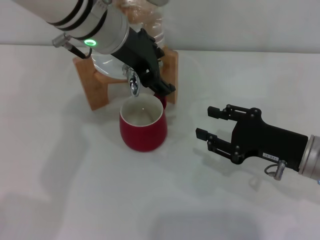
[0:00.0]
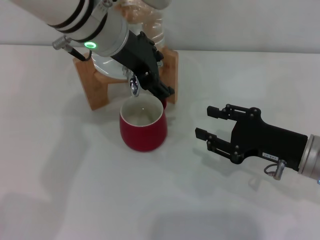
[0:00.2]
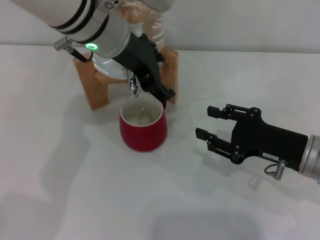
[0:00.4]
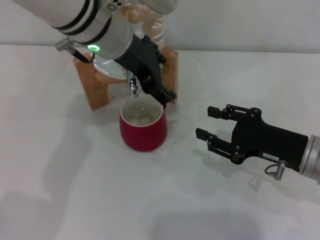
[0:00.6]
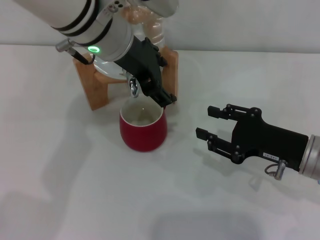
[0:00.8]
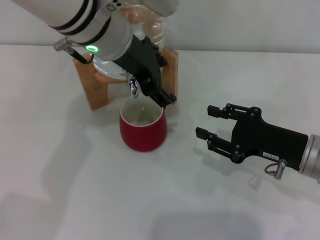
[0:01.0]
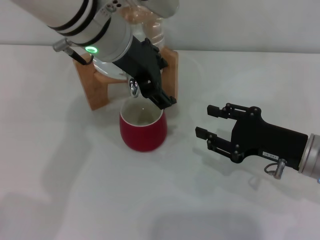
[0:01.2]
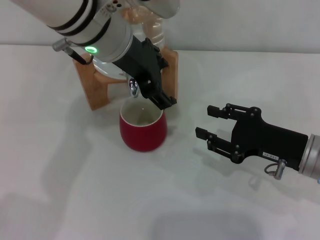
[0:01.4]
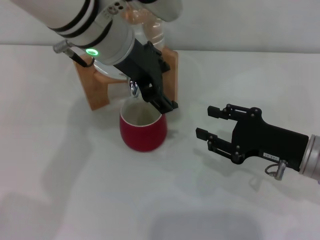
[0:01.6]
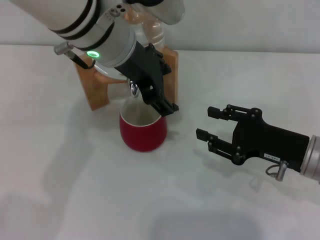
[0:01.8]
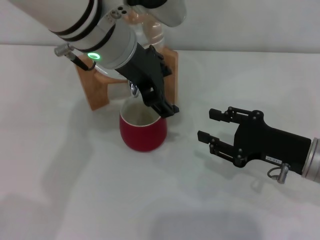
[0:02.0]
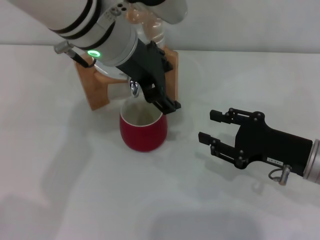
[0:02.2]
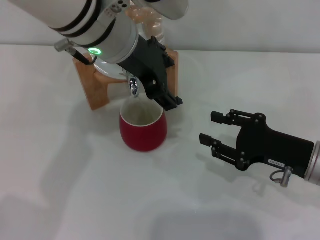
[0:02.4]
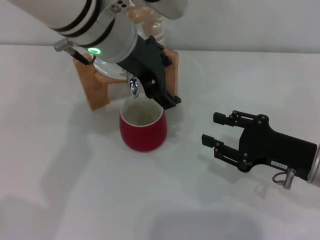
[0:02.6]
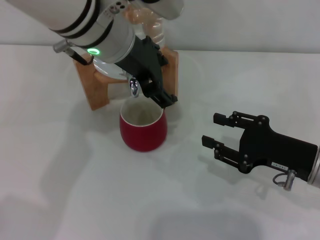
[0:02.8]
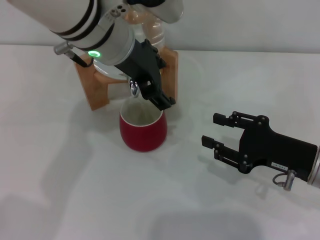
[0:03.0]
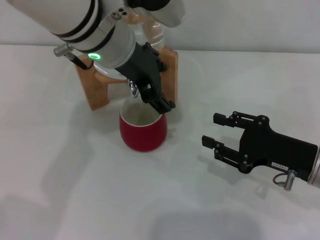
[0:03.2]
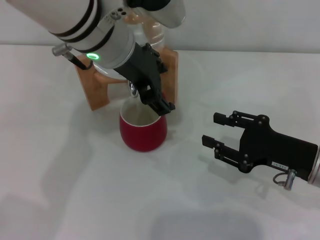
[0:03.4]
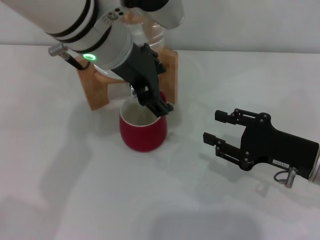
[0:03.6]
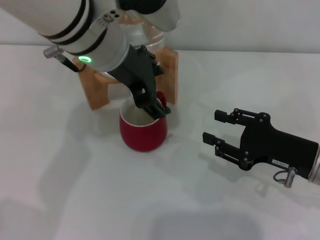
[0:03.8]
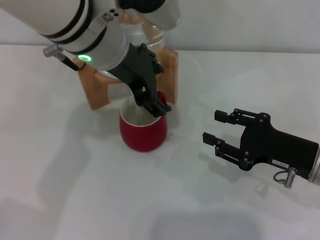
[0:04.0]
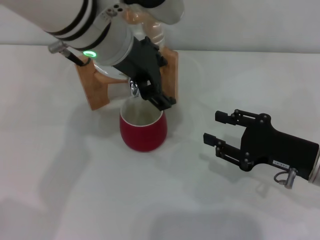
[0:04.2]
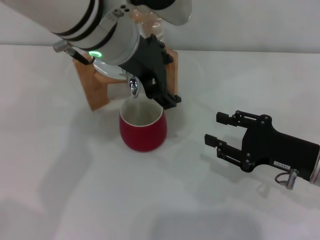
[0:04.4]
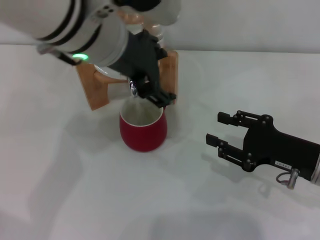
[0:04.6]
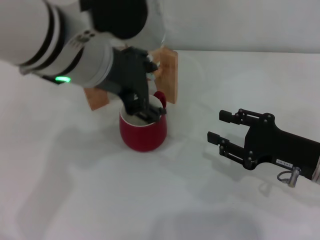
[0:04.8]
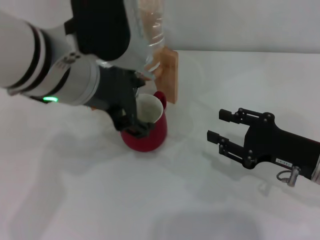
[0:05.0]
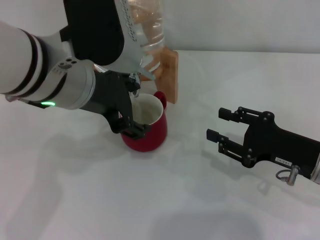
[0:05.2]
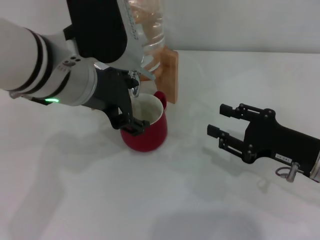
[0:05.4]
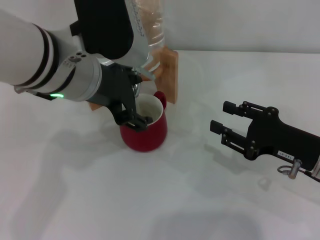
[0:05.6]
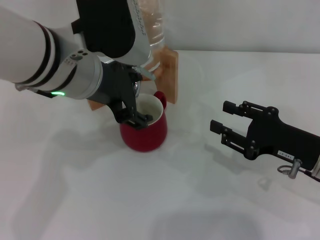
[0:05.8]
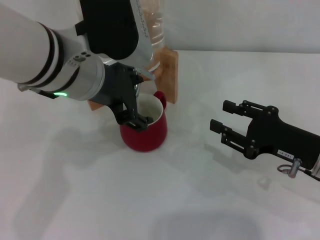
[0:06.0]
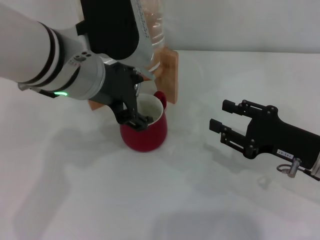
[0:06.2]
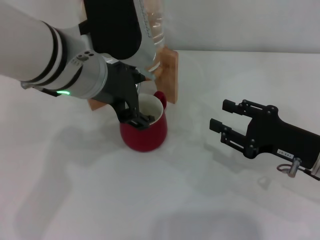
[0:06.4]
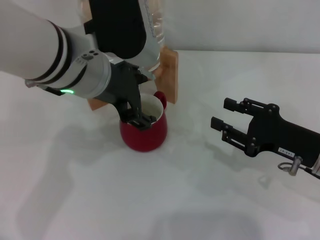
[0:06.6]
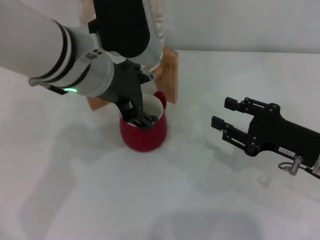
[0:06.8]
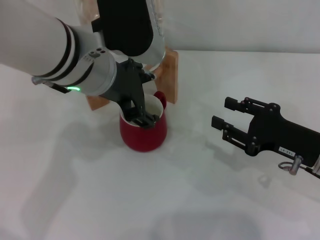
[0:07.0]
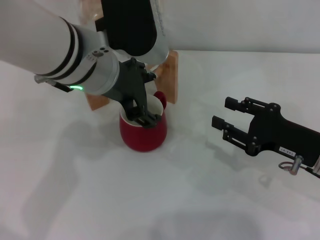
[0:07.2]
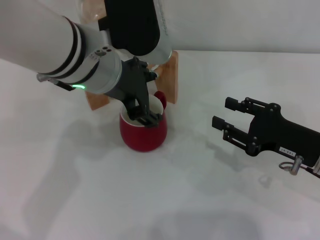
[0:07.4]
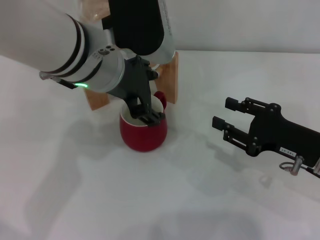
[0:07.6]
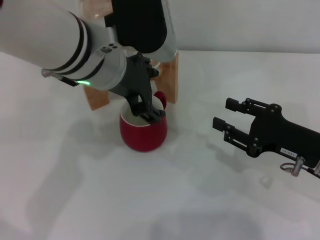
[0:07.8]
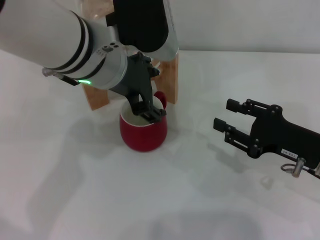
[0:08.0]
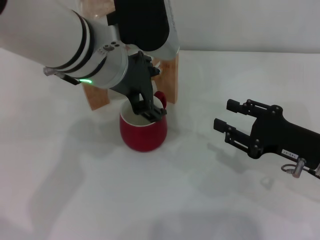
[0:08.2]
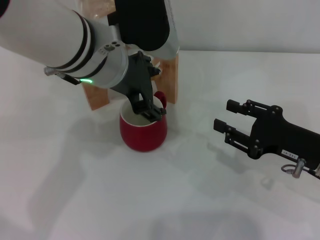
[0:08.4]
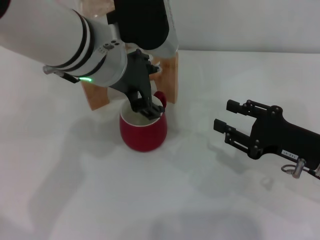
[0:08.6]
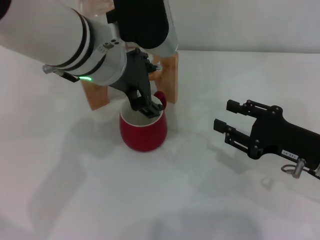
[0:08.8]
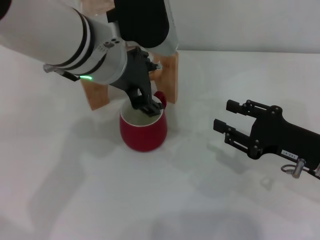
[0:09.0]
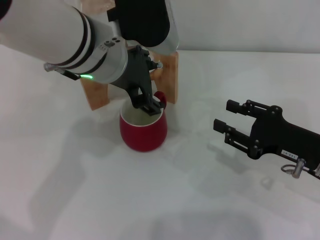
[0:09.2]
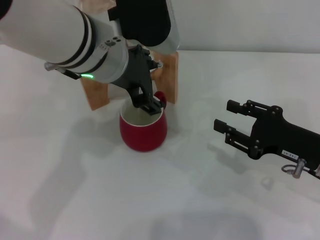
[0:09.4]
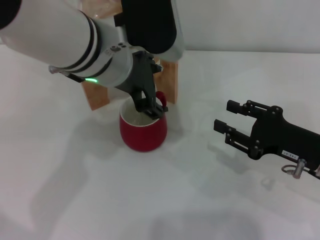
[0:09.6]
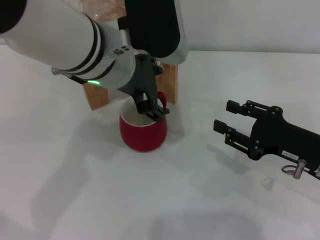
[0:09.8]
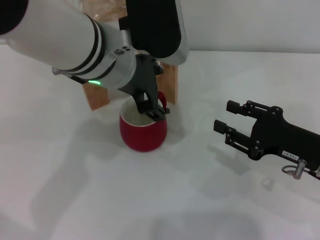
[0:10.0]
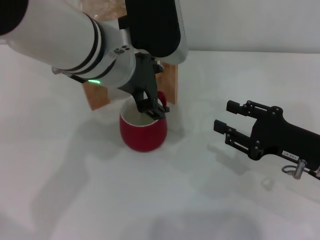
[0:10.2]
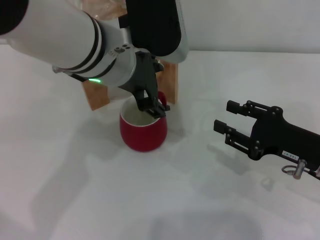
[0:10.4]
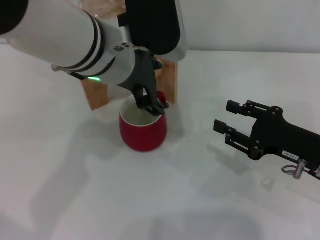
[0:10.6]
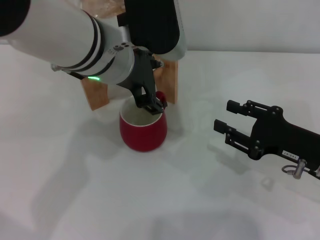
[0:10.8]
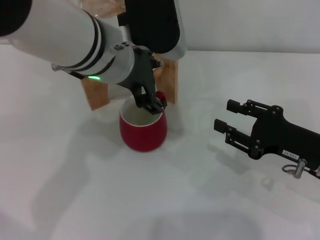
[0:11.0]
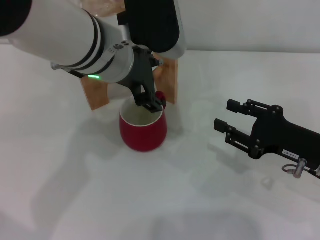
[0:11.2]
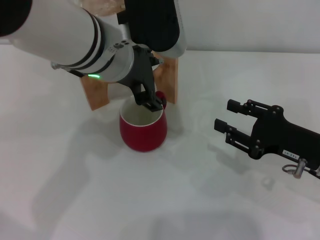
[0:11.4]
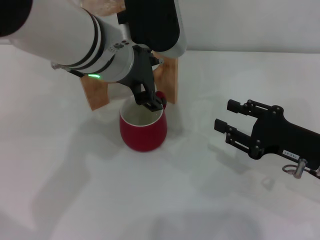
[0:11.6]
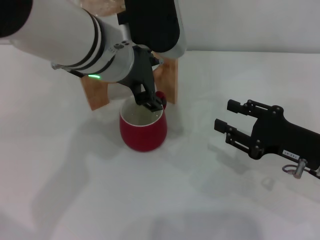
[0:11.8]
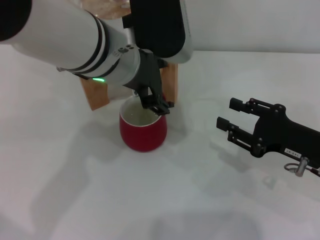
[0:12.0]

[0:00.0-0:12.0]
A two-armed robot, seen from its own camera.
Task of the whole recording: the right gripper pick up the red cup and place it horizontally under the faucet, the left gripper turn on the faucet to fill the cup, and then turn off the faucet.
Step, 0:00.0 to 0:06.4: Open the dispenser valve and fill the cup with water with the left gripper.
0:00.0 to 0:04.4: There are only small adjustments of the grippers.
0:04.4 to 0:06.0: The left gripper ends up some 5 cm from where it was.
0:06.0 to 0:07.6: The grippers stay close to where they were, moving slightly.
0:07.6 to 0:09.0: Both grippers stay put.
0:09.0 to 0:12.0: Both grippers stay about where they are.

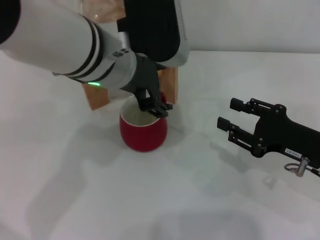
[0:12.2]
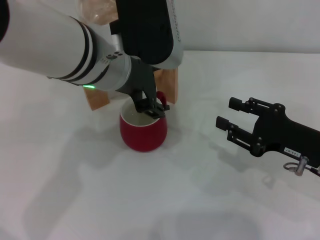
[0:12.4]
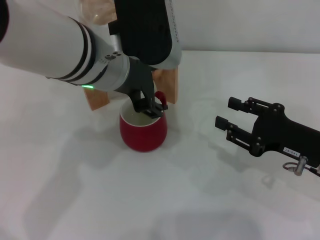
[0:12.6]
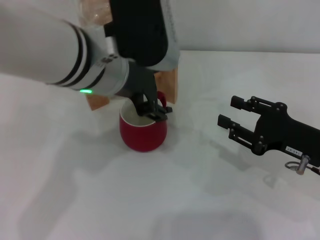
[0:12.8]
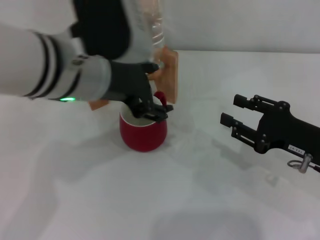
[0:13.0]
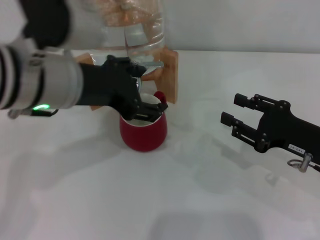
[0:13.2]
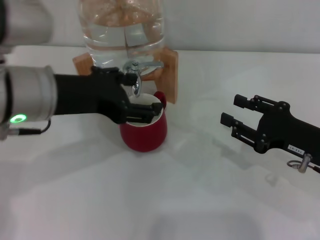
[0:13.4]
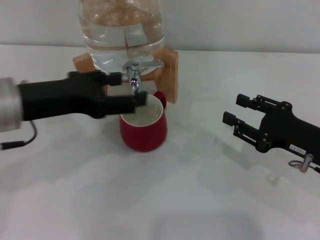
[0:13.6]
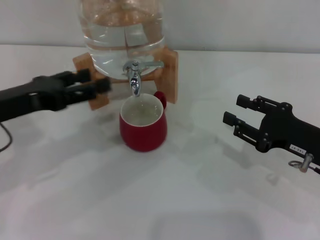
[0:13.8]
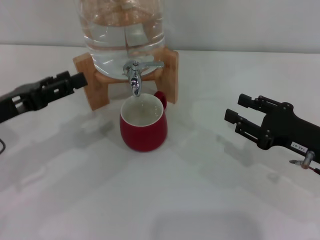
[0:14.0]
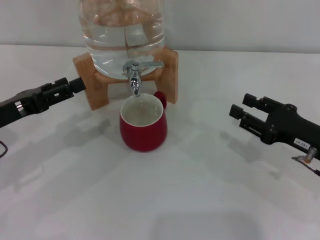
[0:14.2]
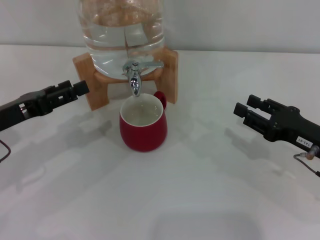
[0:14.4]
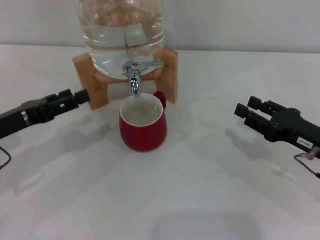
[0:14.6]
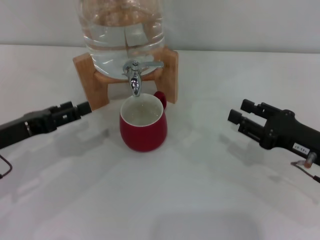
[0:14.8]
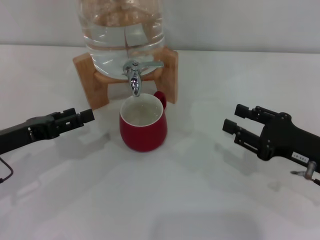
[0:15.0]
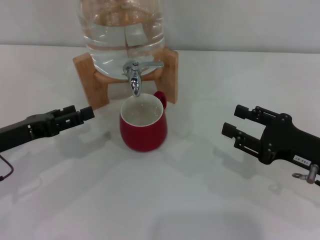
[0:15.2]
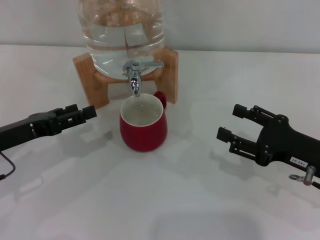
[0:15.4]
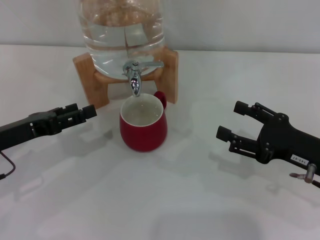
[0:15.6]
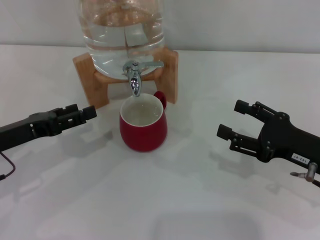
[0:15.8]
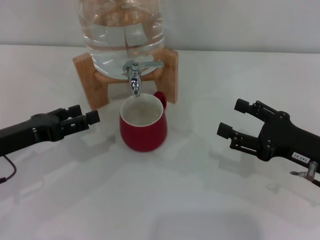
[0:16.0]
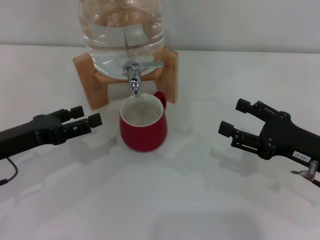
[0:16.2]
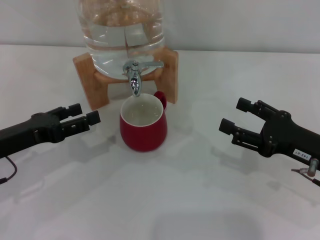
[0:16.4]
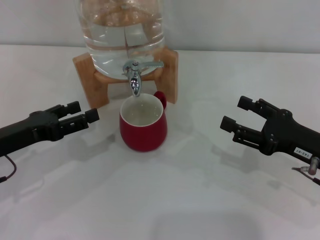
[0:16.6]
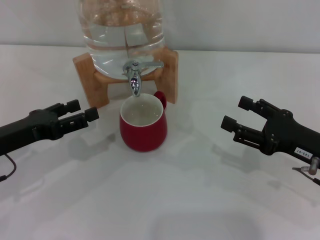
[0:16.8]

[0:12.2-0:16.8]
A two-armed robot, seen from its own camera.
Task of the whole recording: the right gripper pick up the red cup and place it horizontally under the faucet, the left gripper turn on the faucet to fill the cup, and then turn off the faucet.
0:12.2 to 0:13.8: The left gripper travels to the left by about 20 cm.
0:13.8 to 0:15.2: The left gripper goes some 5 cm downward.
0:15.2 to 0:16.8: The right gripper opens.

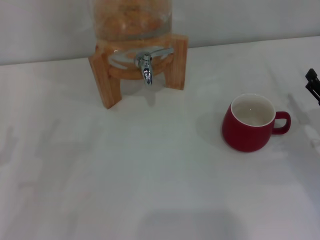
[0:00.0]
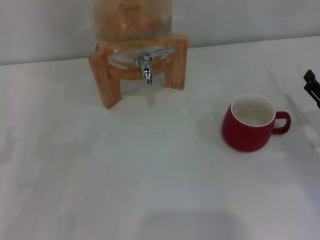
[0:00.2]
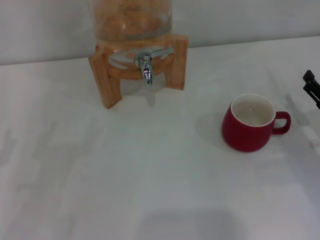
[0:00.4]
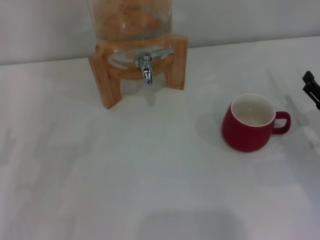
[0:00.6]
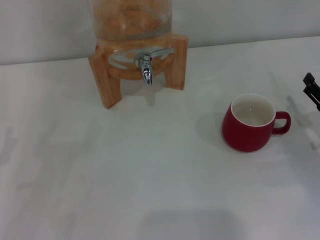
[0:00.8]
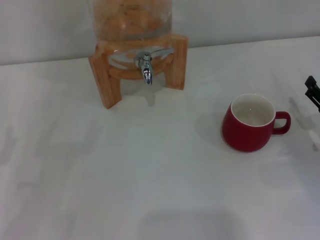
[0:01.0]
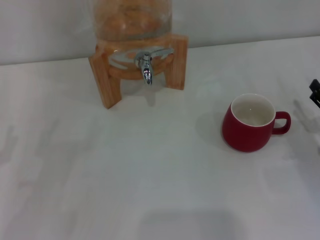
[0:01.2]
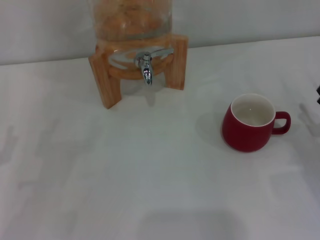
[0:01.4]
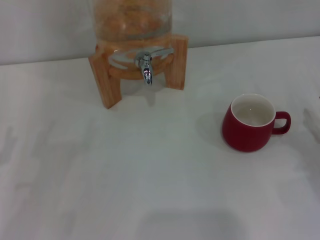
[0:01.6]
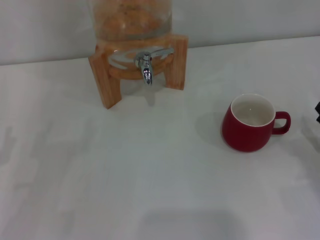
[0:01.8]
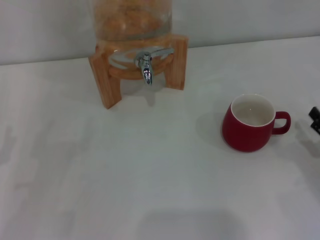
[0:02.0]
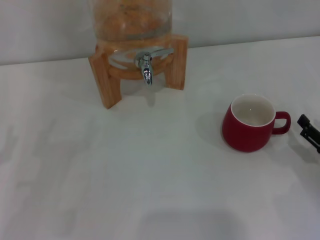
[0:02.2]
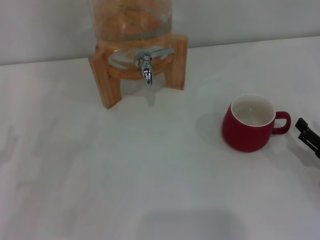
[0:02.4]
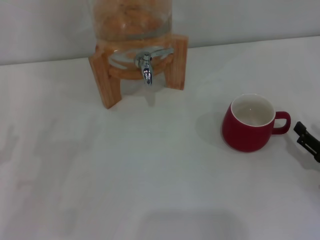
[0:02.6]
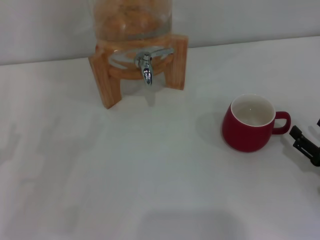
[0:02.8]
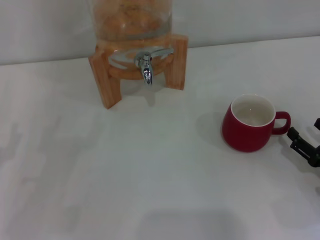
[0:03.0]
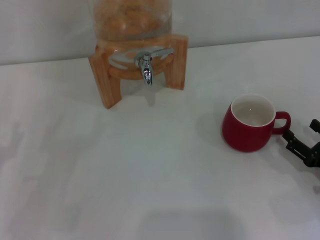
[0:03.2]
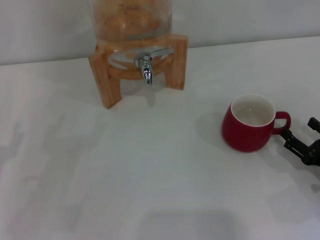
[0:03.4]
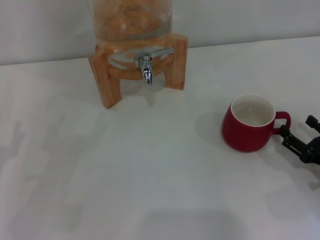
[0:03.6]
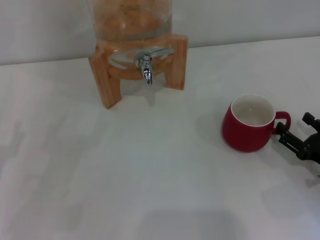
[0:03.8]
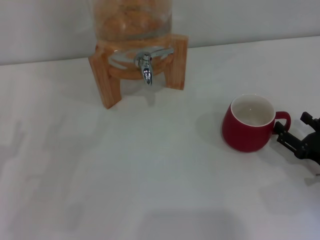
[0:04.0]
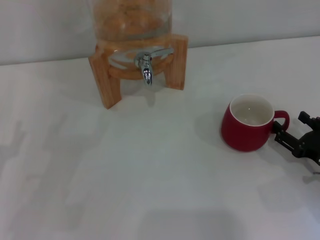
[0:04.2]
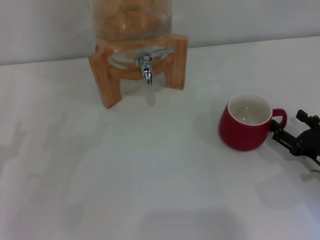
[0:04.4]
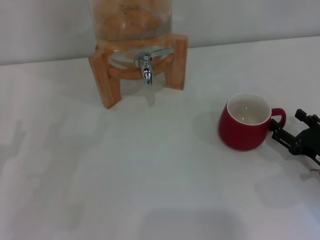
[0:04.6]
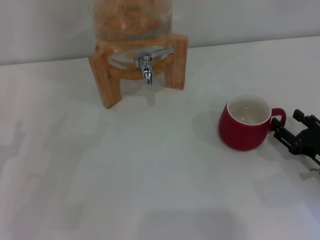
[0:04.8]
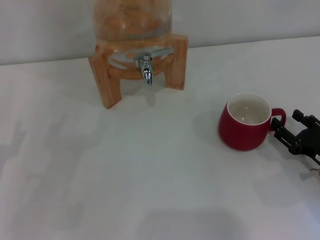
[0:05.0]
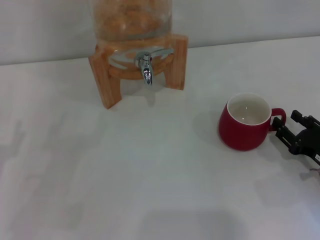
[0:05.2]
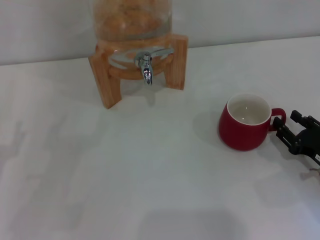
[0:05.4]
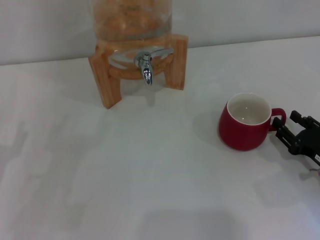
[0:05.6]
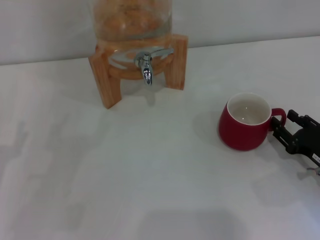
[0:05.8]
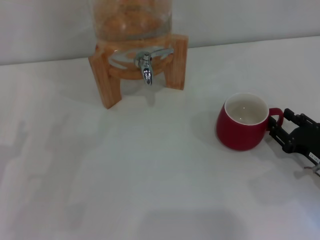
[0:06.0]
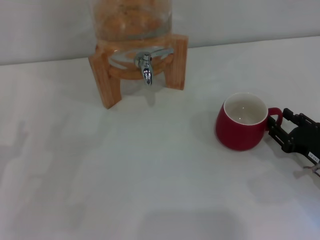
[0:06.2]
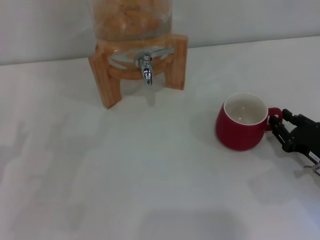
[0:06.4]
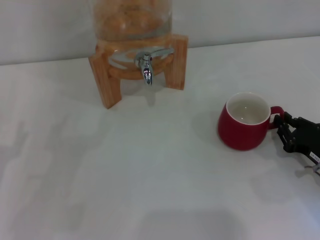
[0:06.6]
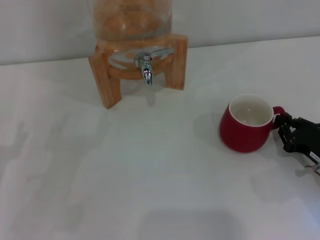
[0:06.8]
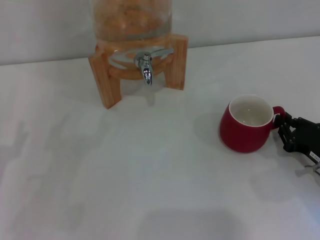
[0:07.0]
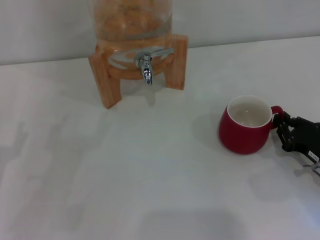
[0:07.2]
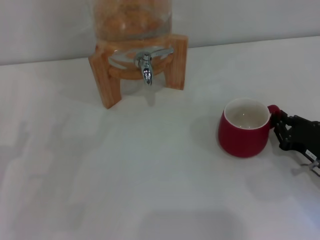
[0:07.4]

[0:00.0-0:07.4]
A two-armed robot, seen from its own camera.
Task of the whole recording: the right gripper pick up the red cup and place it horizontally under the faucet, the left gripper turn on the faucet to fill the cup, and then turn off the faucet.
0:01.4 to 0:04.4: The grippers stay close to where they were, moving slightly.
0:04.4 to 0:06.0: Neither gripper changes place.
0:06.0 to 0:07.4: The right gripper closes its fingers.
